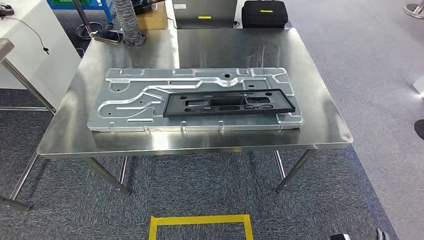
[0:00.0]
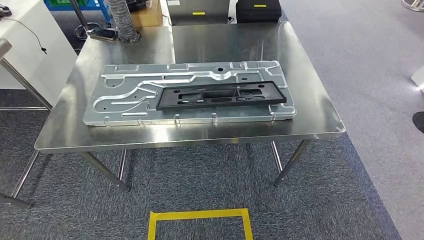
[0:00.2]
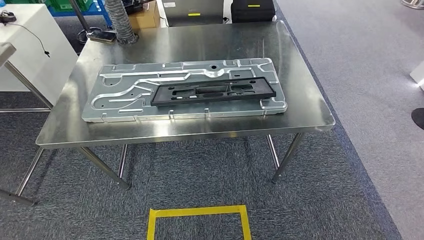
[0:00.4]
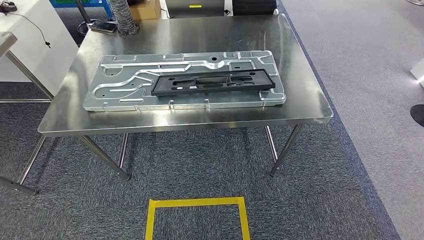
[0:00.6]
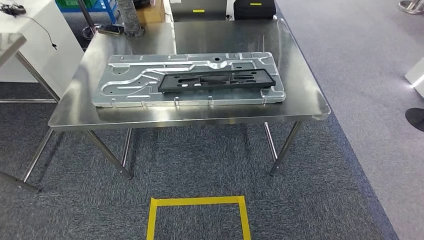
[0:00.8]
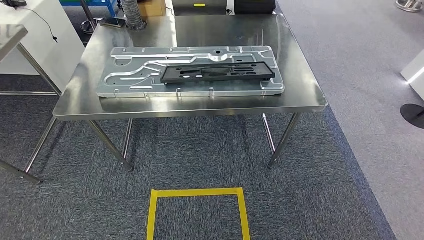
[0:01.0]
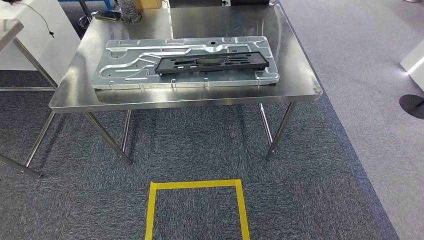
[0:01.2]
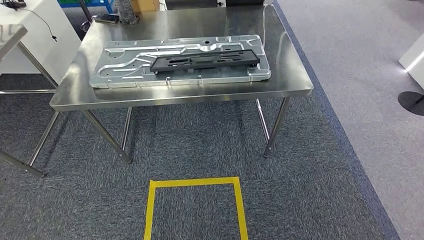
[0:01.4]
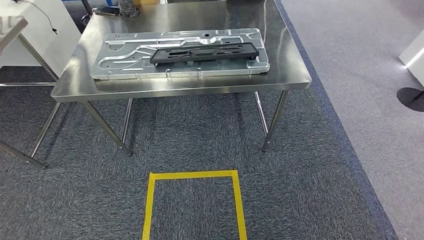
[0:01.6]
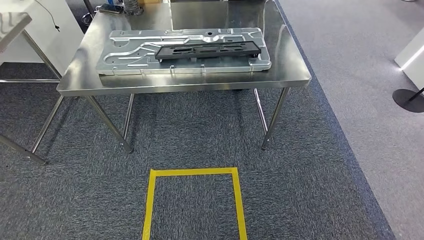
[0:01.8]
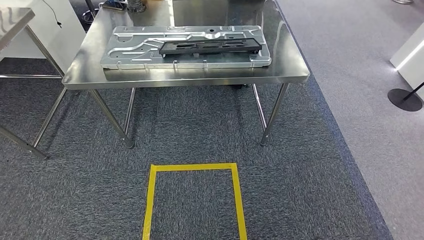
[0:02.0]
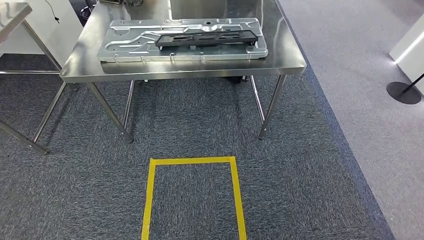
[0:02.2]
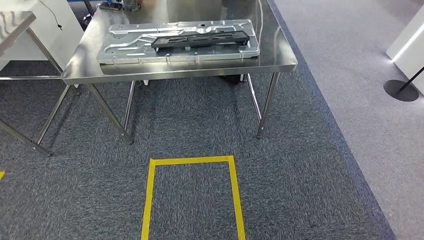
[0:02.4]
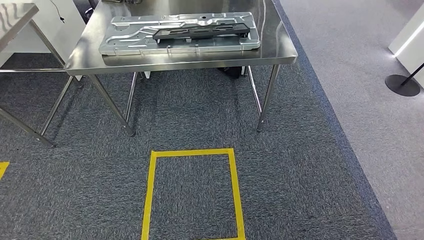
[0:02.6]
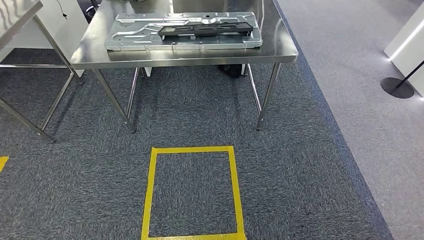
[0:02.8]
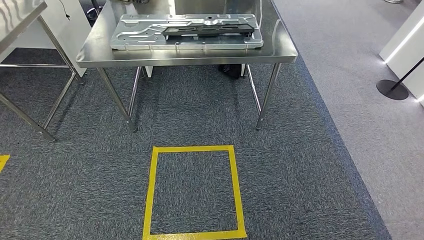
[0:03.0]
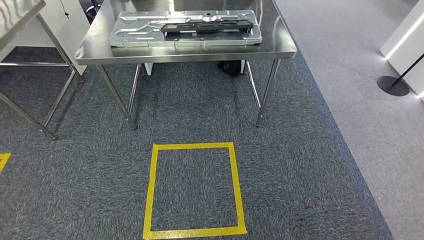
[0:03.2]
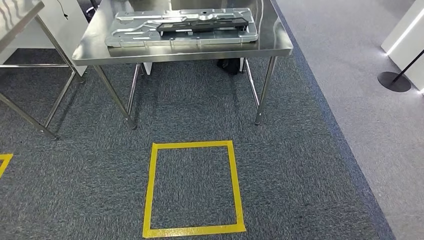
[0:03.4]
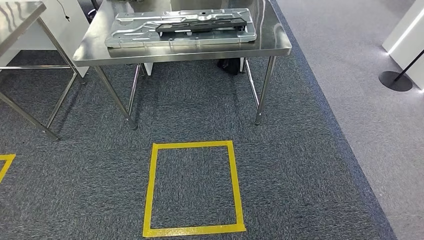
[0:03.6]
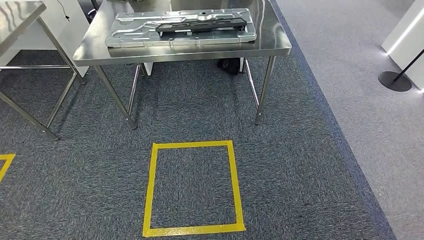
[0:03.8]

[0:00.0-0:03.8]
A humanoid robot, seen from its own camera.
Step, 0:00.0 to 0:03.8: Move to the initial position of the shelf.
0:02.6 to 0:03.8: There are only small adjustments of the hands.

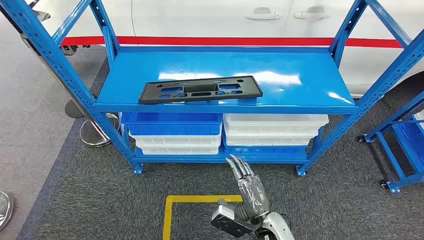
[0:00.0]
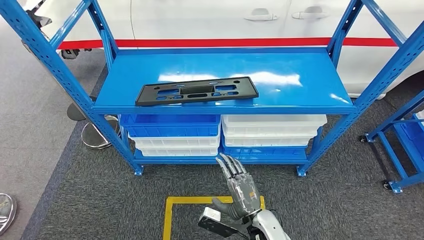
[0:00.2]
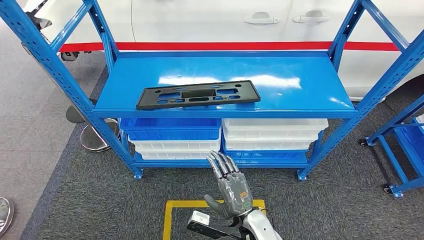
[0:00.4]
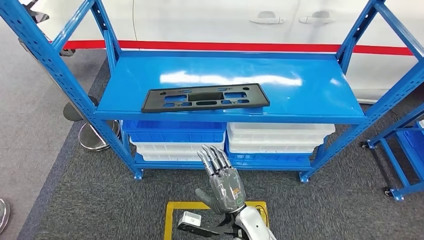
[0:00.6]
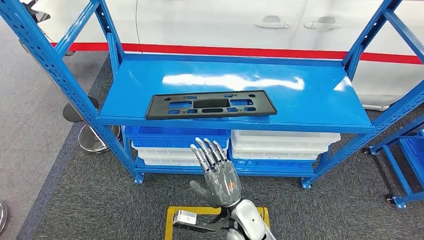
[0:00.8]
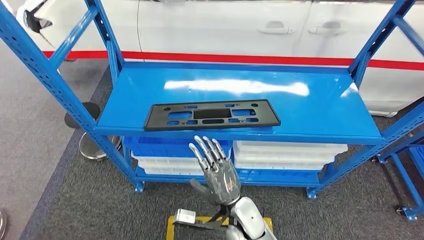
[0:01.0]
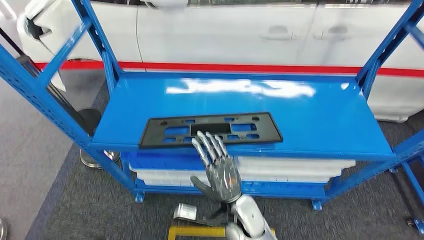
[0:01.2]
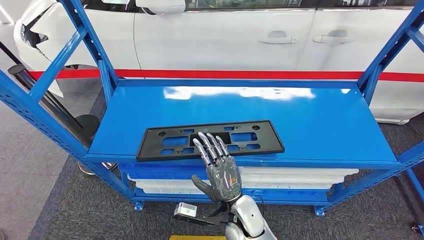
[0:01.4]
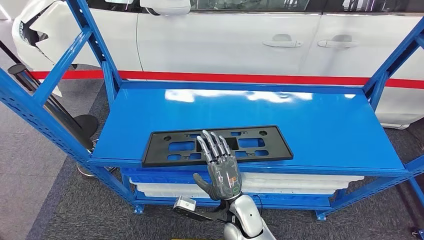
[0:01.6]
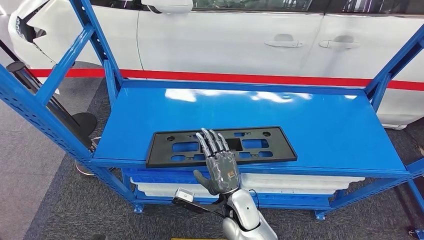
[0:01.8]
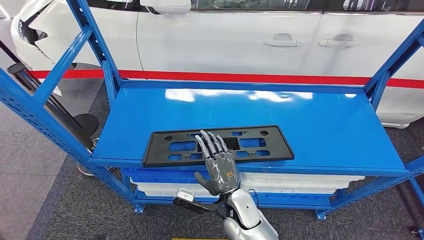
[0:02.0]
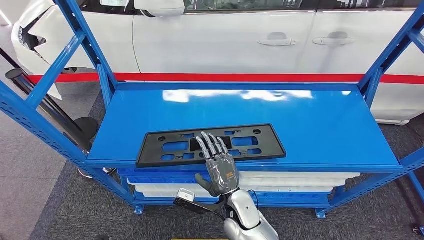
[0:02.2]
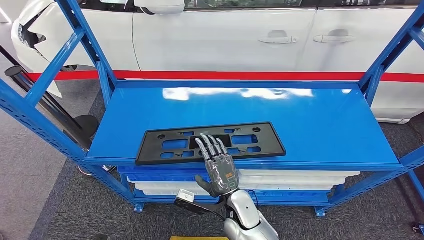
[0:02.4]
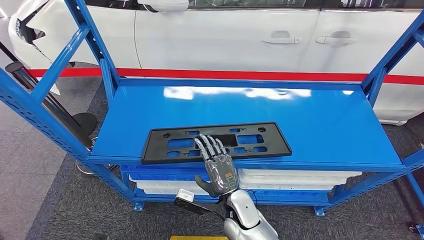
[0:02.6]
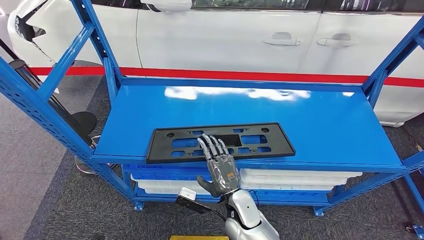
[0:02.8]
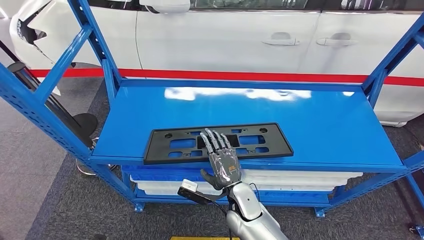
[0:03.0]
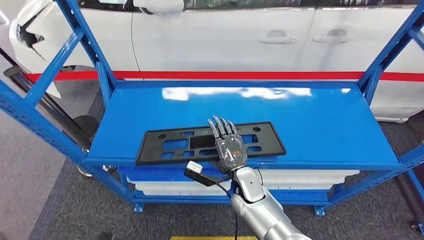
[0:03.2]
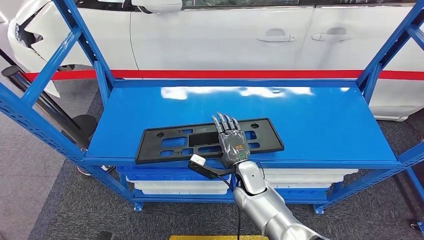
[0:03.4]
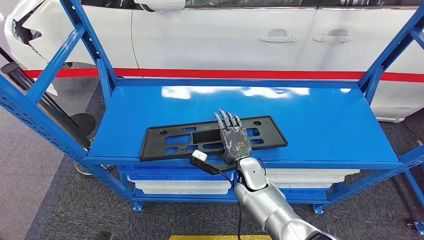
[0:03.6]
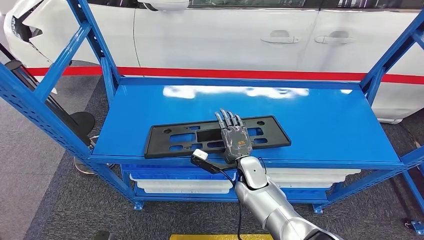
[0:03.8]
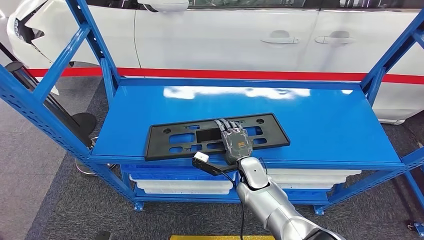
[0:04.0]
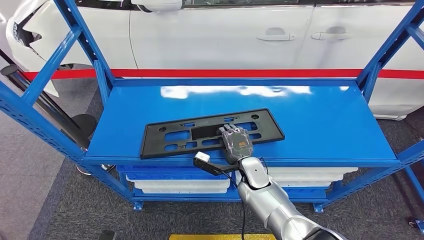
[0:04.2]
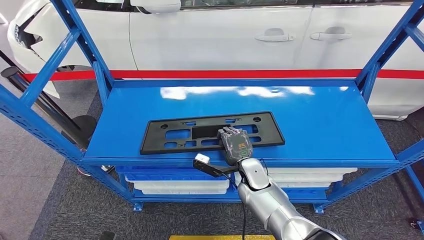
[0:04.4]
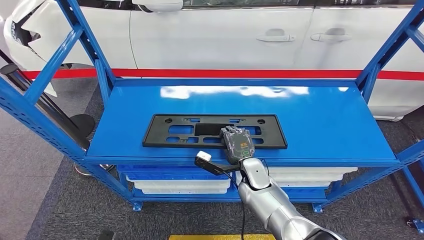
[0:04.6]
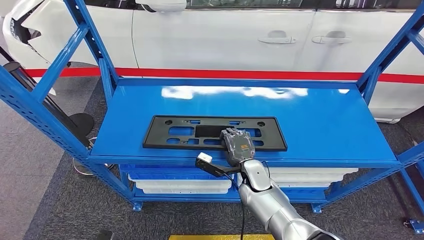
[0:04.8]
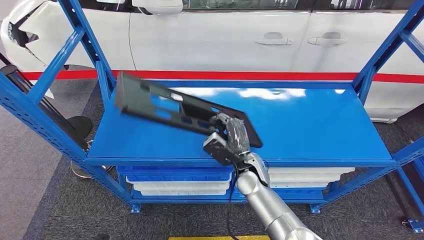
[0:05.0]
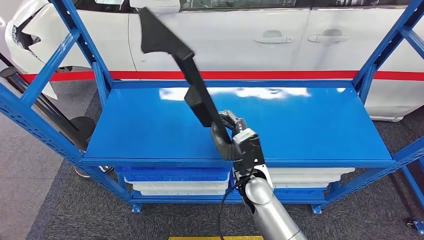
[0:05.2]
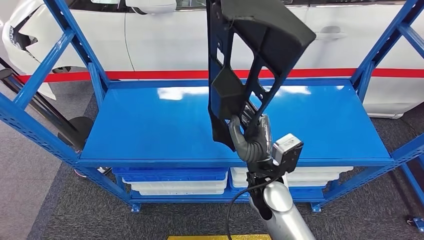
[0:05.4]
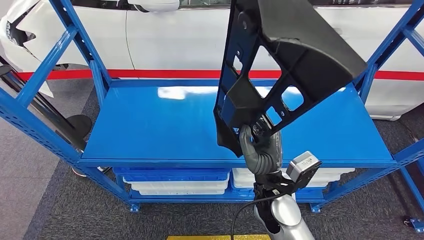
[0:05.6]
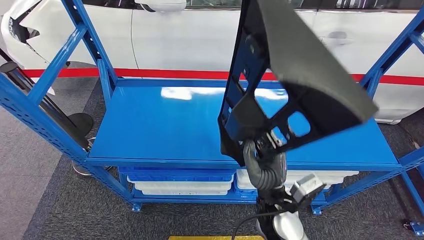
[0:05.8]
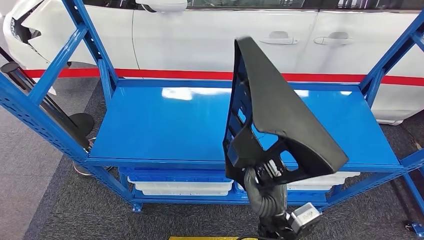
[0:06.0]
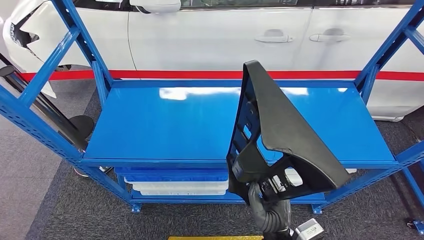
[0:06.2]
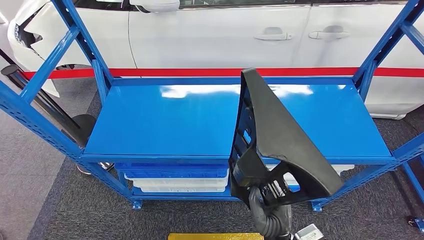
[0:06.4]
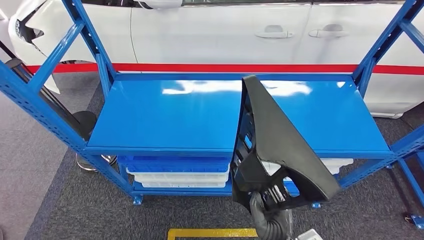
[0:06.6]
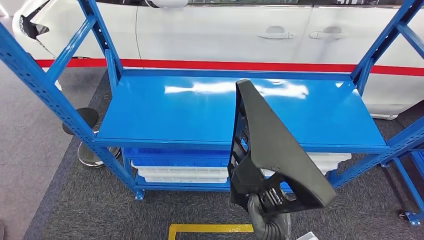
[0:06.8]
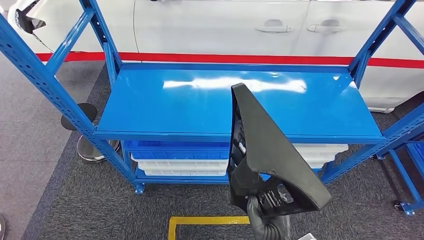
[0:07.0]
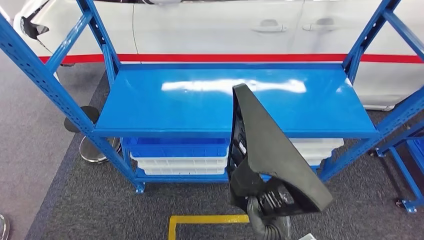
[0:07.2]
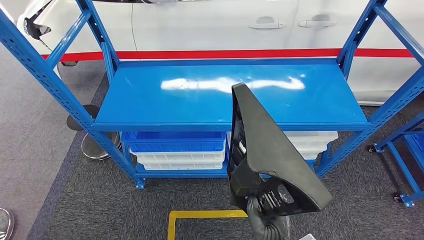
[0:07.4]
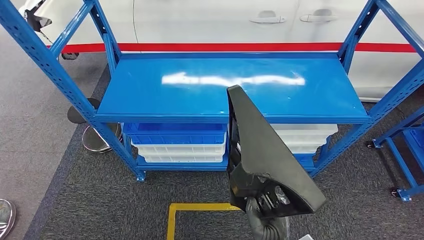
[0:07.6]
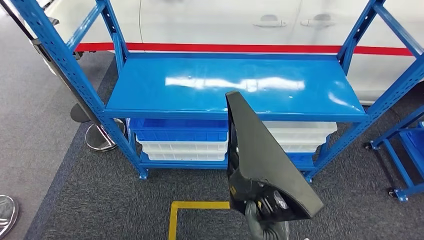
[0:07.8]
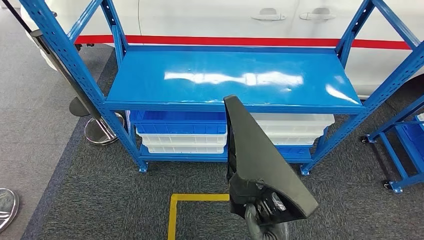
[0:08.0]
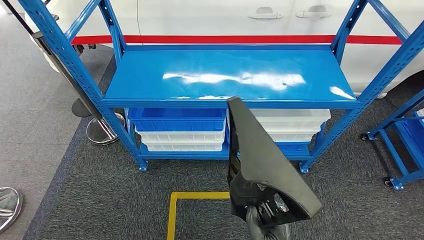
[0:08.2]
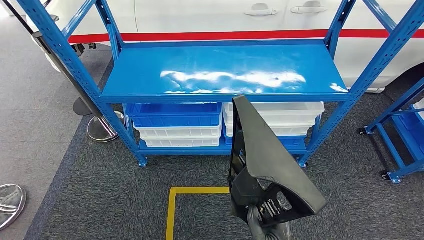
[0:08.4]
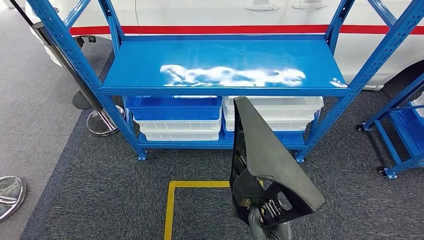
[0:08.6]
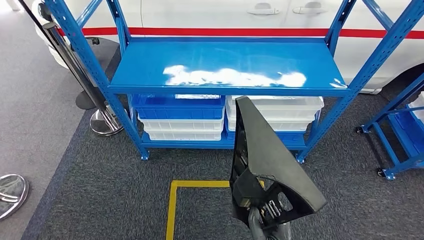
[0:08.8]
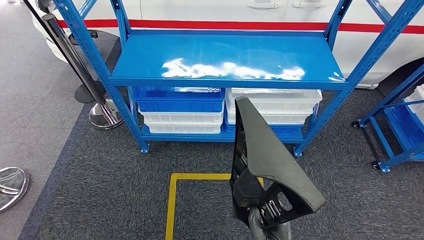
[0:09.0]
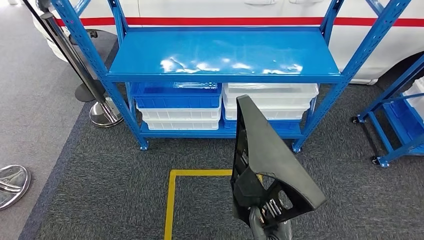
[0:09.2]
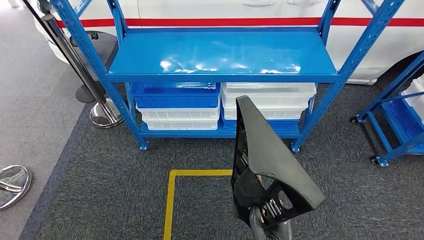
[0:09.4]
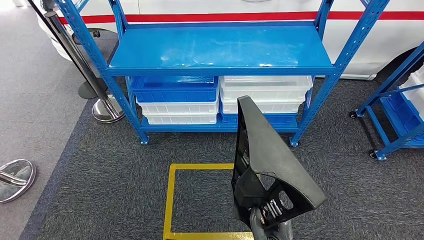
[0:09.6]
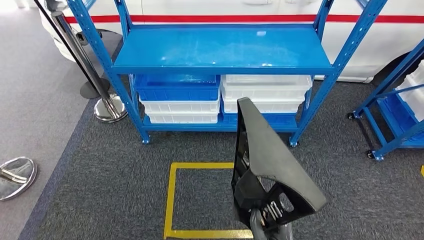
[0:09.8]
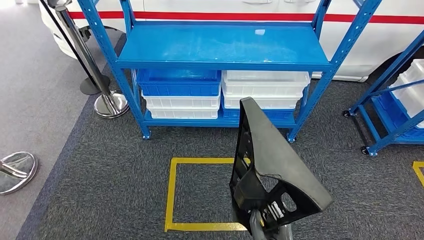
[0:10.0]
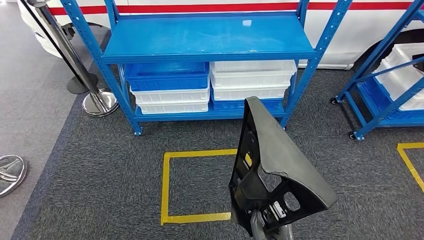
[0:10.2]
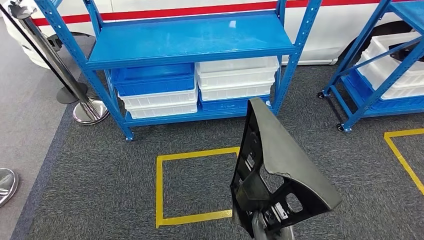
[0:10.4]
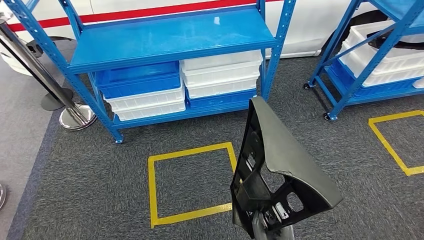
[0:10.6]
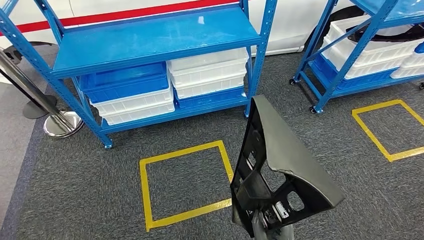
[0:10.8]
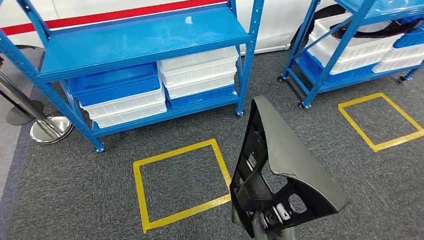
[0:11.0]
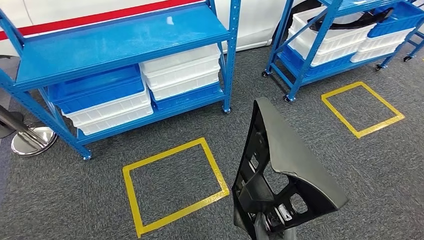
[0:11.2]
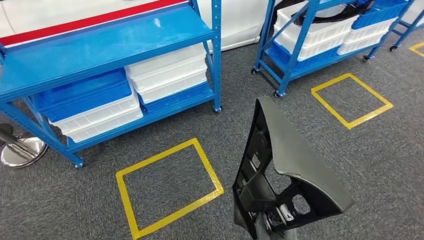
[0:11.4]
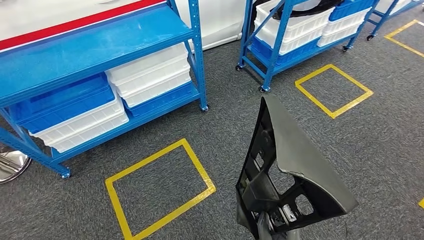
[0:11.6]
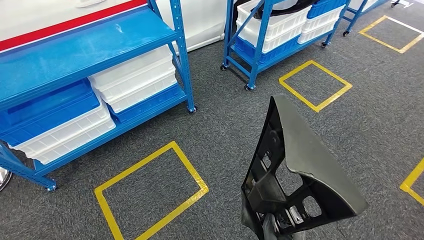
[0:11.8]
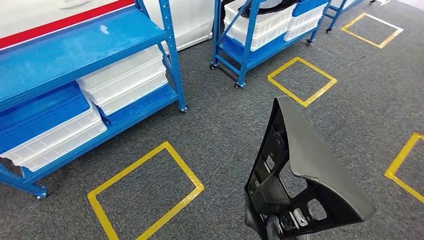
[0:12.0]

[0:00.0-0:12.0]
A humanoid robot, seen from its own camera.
Step, 0:00.0 to 0:06.6: Pick up the large material from the shelf.
0:01.6 to 0:03.0: There are only small adjustments of the hands.

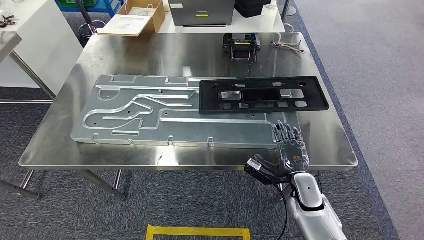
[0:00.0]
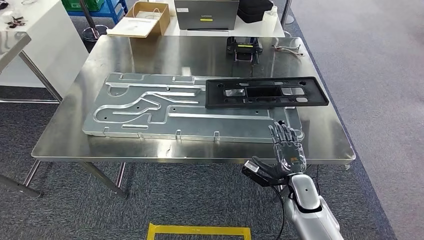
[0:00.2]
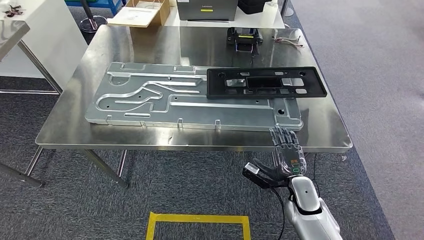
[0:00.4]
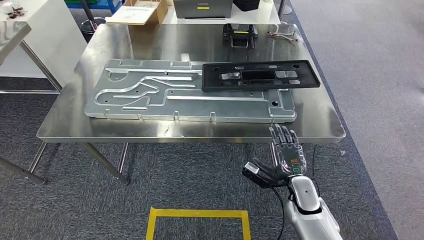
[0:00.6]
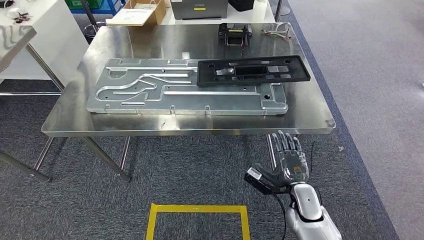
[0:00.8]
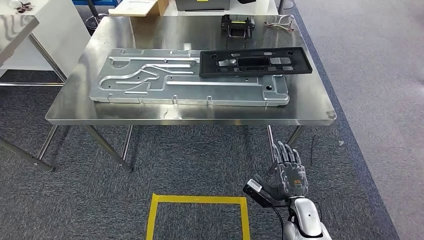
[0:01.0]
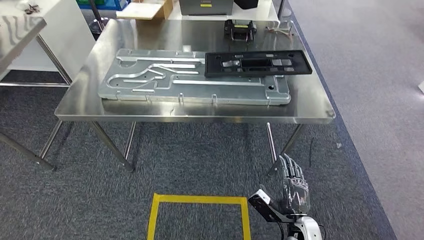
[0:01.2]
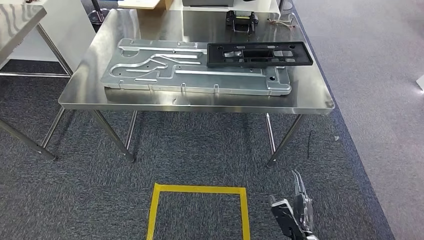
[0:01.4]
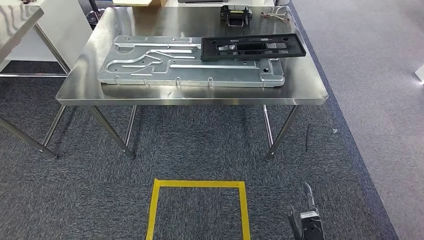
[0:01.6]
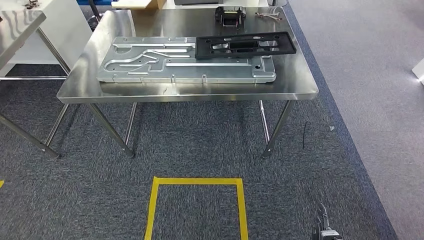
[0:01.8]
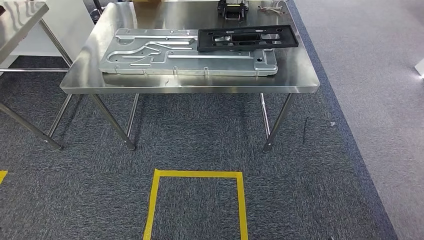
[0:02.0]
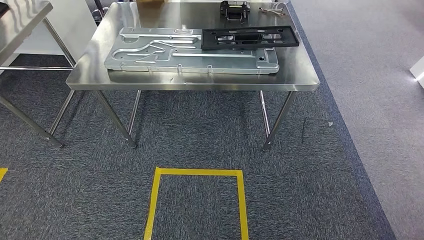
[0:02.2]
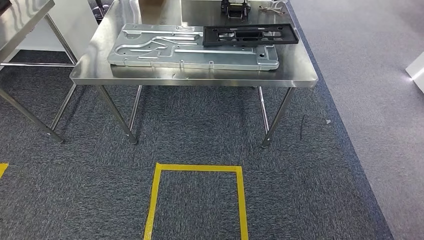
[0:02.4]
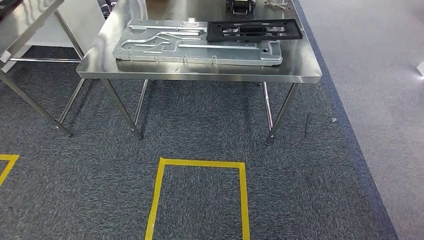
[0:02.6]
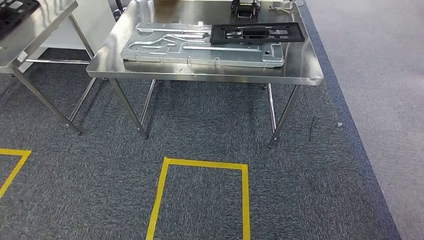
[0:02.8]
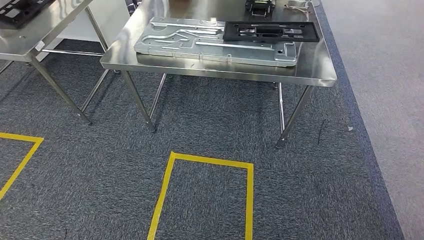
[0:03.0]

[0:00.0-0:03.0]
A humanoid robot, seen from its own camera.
Step, 0:00.0 to 0:02.4: Insert the large material into the corresponding slot on the workbench.
